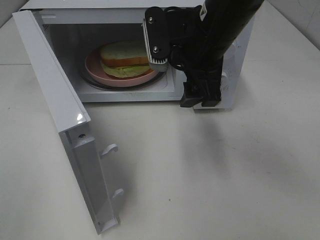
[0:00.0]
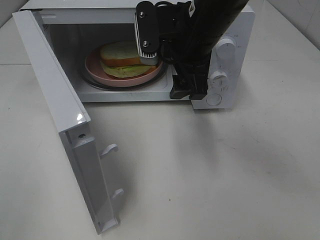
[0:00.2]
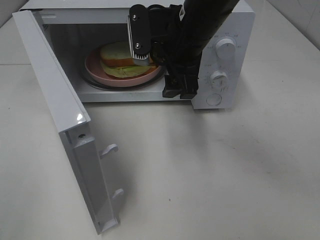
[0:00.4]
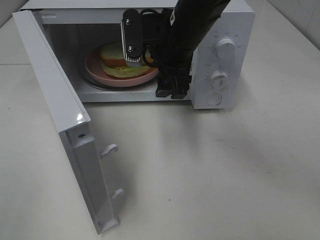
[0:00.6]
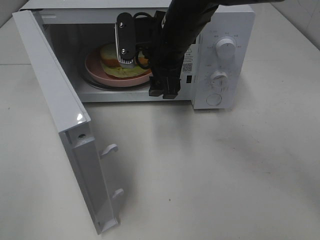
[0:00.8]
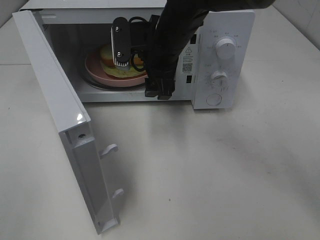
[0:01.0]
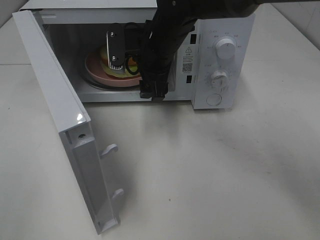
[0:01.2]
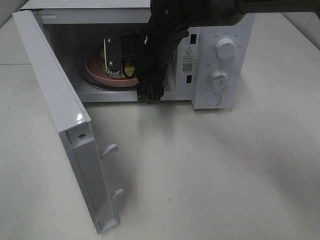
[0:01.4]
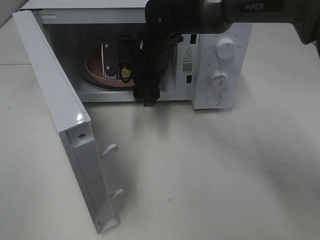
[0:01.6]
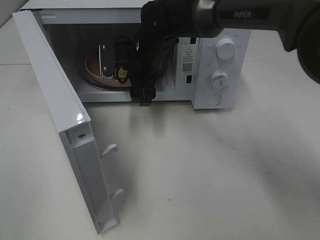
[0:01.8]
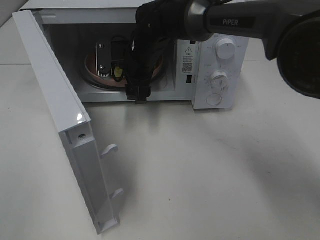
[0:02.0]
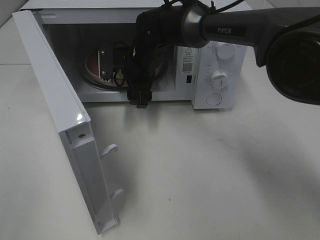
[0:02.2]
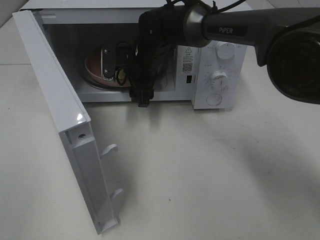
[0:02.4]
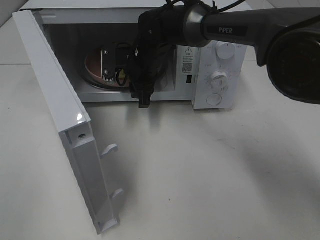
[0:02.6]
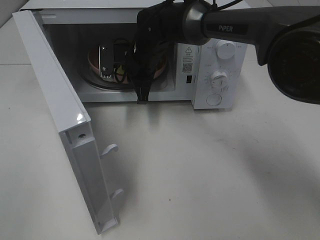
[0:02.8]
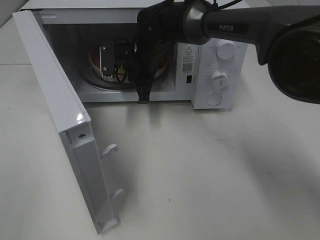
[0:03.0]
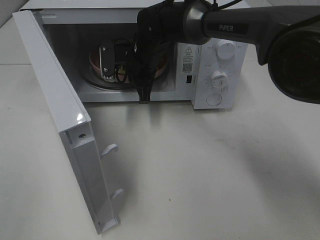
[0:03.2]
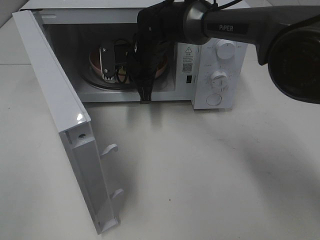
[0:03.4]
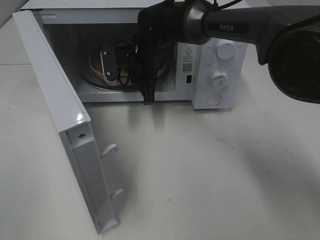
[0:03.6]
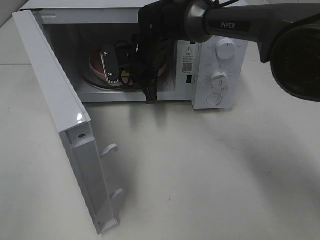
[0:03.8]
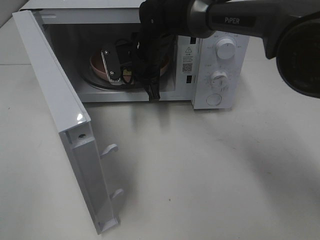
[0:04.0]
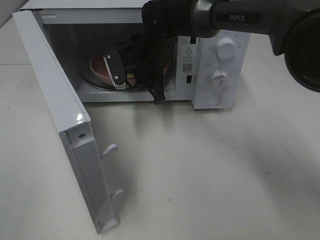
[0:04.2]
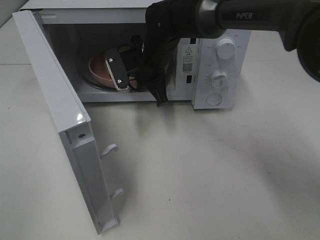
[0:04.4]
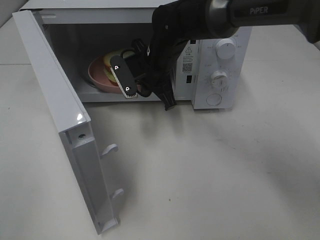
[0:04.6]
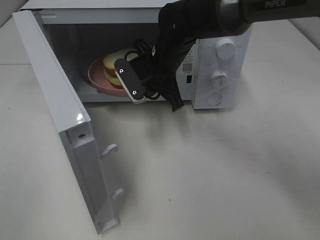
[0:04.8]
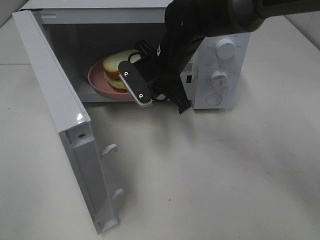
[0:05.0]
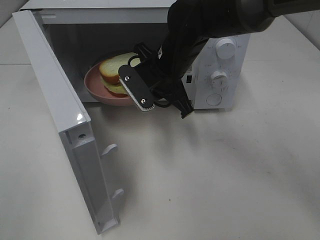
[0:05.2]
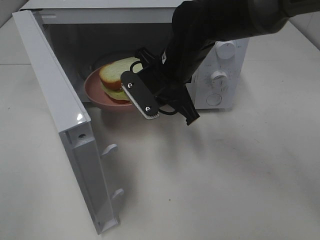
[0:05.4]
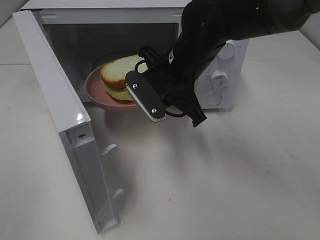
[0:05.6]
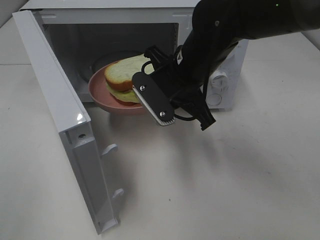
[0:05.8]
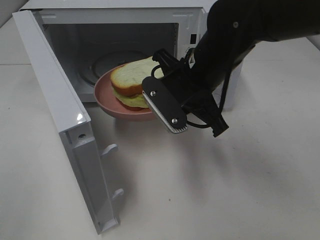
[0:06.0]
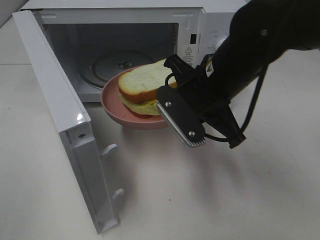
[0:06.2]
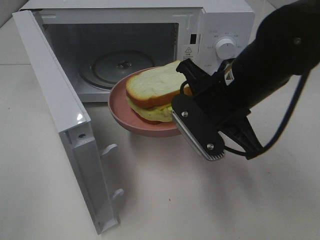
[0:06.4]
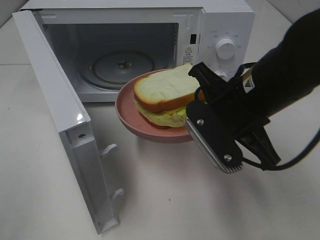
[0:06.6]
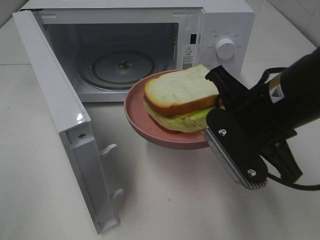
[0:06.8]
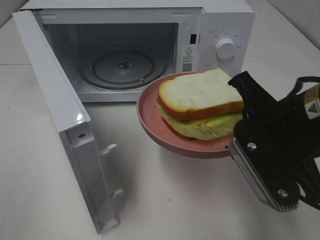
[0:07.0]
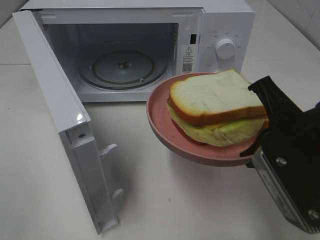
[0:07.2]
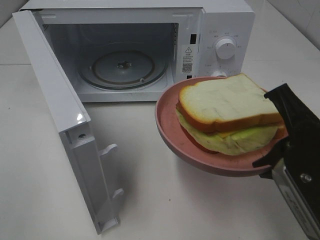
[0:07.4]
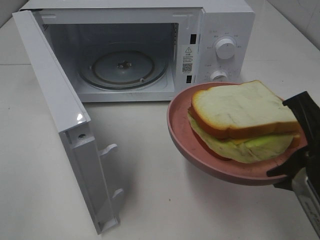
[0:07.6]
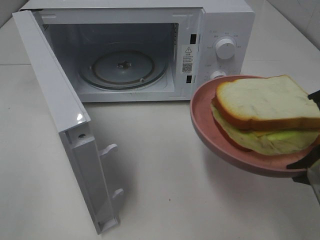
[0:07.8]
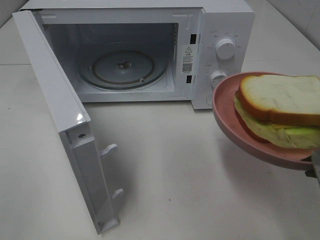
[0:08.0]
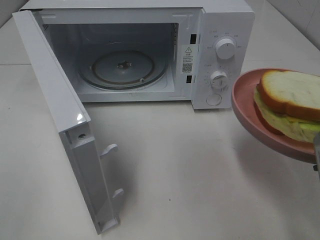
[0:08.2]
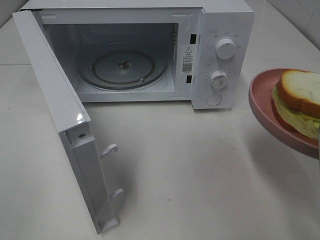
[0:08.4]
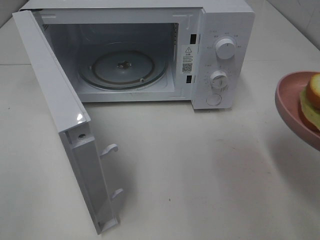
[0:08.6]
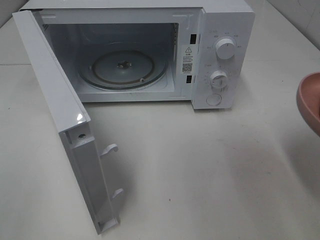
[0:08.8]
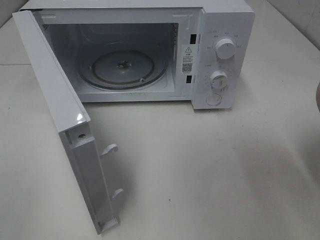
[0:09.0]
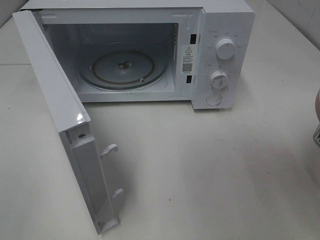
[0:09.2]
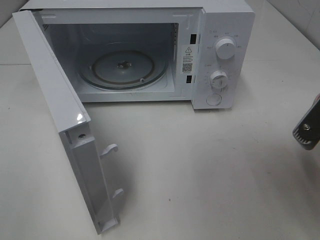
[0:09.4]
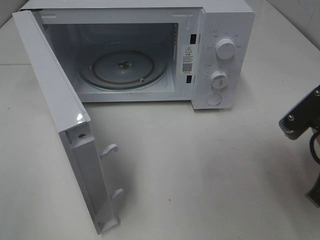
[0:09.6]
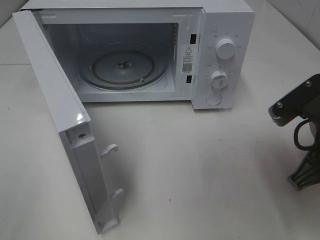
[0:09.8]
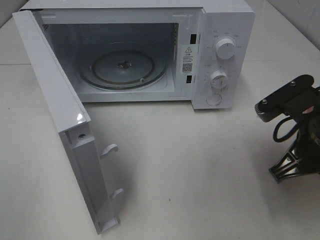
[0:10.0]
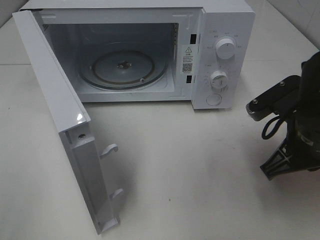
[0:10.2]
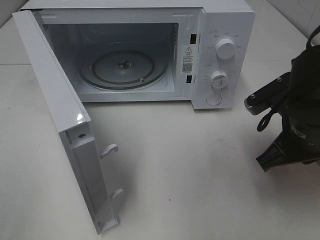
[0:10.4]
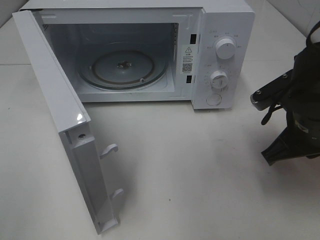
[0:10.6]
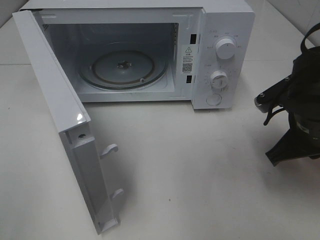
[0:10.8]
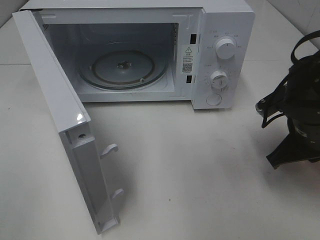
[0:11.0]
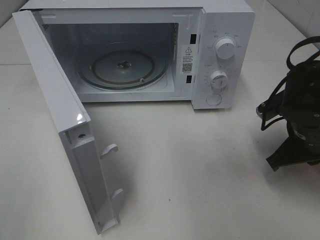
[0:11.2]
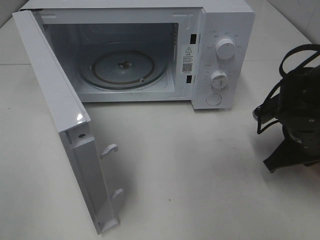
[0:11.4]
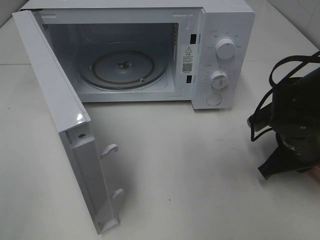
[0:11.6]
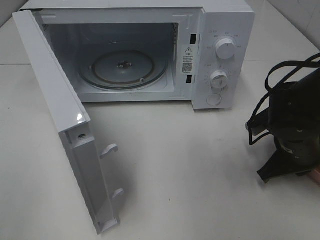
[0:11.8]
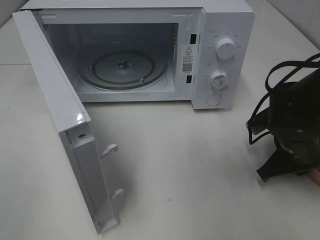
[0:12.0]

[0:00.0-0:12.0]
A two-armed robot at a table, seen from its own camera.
Task of the whole recording: Heat Sandwich.
Step, 0:00.0 to 0:02.6: Right hand: grab the plate with the sandwich.
0:00.0 to 0:01.6: The right gripper shifts some 15 cm forward, downward and to the left.
0:01.6 to 0:03.0: The right gripper closes.
0:03.0 to 0:04.4: The grippers move only a little.
0:04.4 to 0:06.0: The right gripper travels backward and to the right by some 15 cm.
0:06.0 to 0:07.6: The right gripper shifts about 20 cm backward and to the right.
0:07.6 to 0:09.0: The right gripper heads to the right, covering some 5 cm.
0:09.0 to 0:10.4: The right gripper is displaced forward, downward and to the left by some 15 cm.
0:10.4 to 0:12.0: The right gripper shifts roughly 10 cm downward.

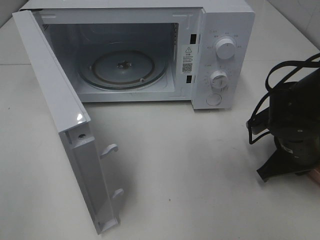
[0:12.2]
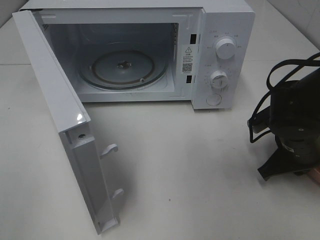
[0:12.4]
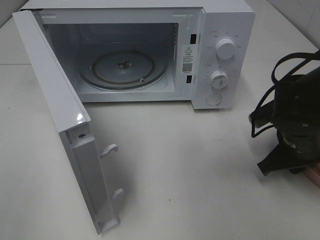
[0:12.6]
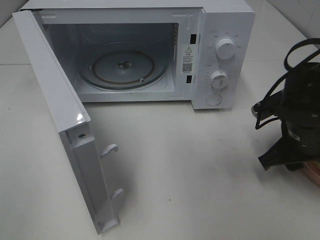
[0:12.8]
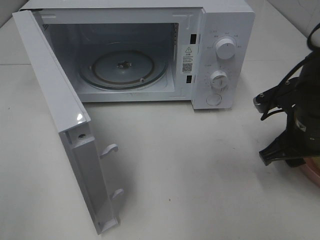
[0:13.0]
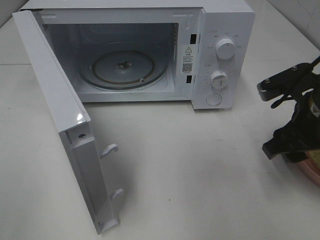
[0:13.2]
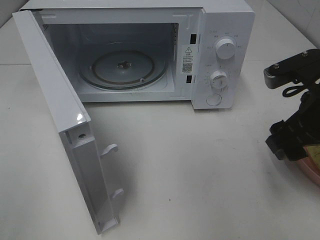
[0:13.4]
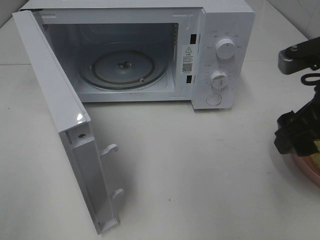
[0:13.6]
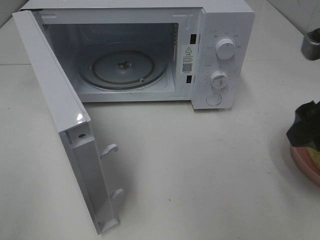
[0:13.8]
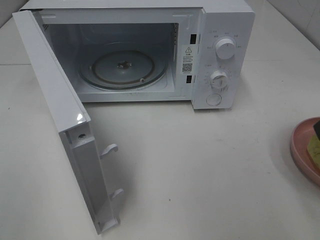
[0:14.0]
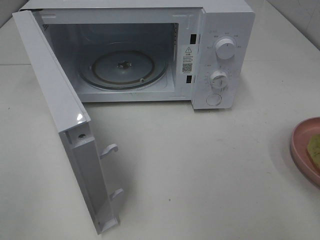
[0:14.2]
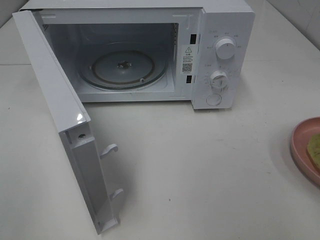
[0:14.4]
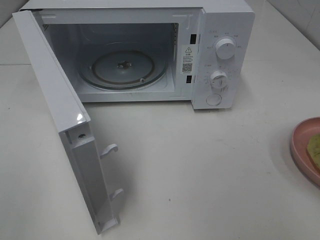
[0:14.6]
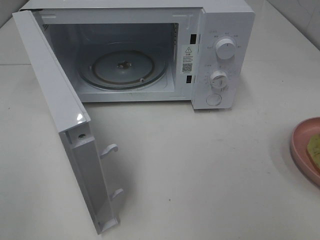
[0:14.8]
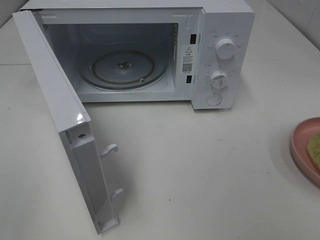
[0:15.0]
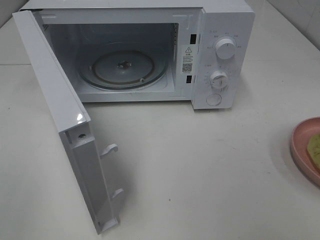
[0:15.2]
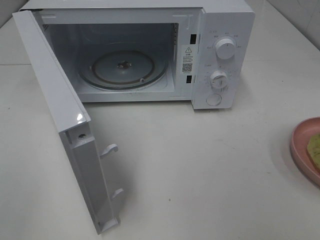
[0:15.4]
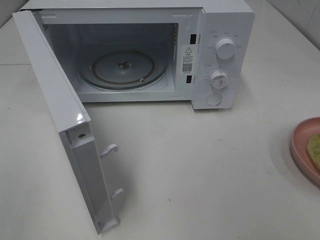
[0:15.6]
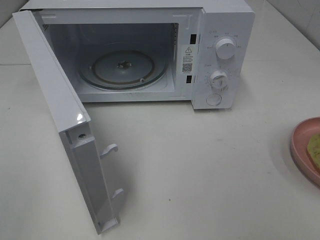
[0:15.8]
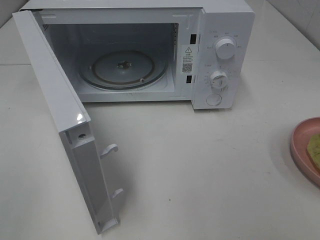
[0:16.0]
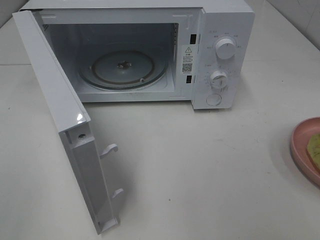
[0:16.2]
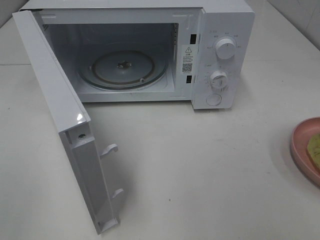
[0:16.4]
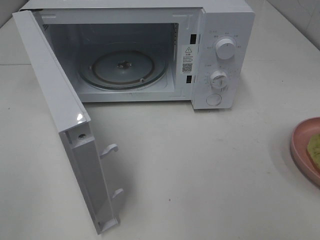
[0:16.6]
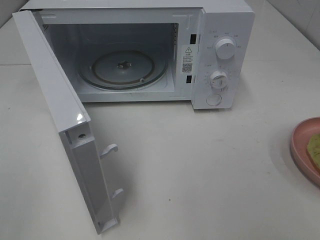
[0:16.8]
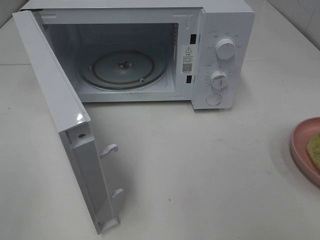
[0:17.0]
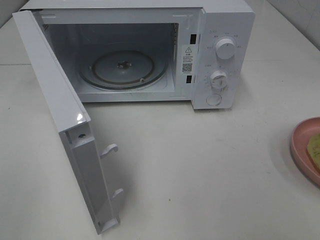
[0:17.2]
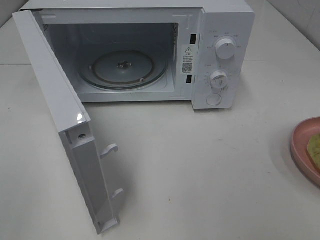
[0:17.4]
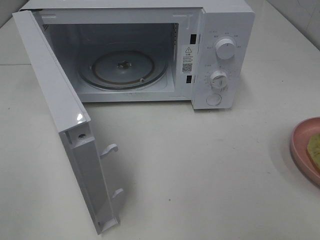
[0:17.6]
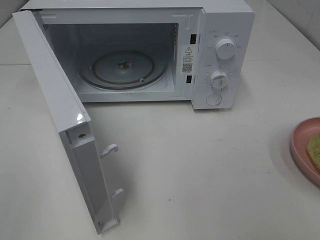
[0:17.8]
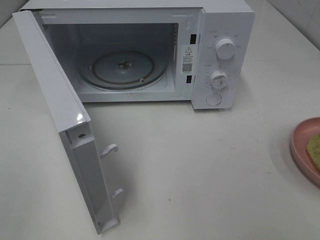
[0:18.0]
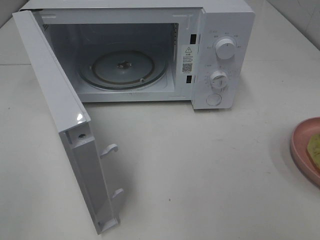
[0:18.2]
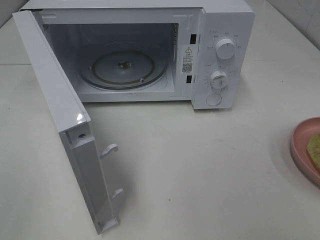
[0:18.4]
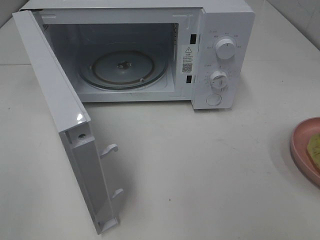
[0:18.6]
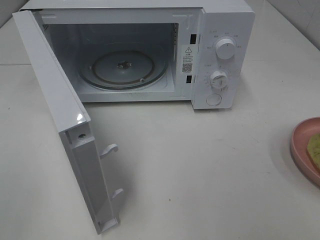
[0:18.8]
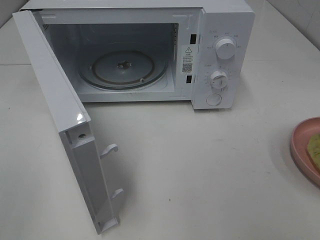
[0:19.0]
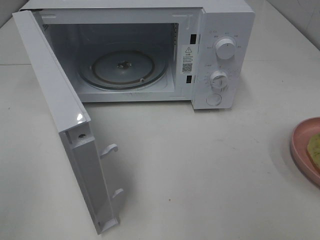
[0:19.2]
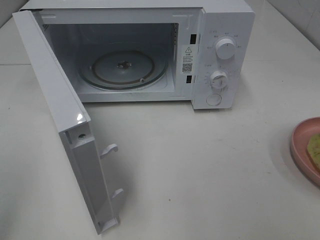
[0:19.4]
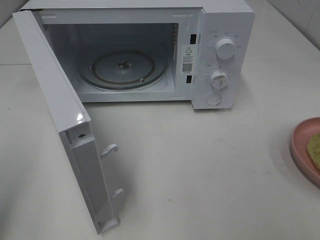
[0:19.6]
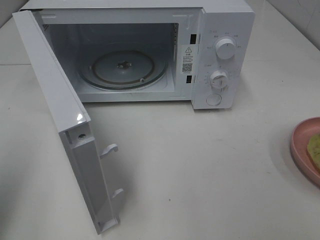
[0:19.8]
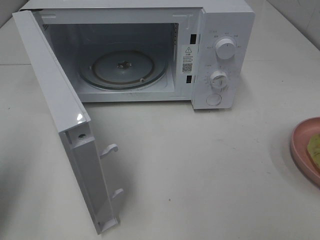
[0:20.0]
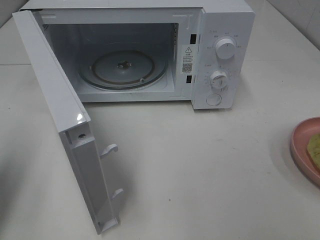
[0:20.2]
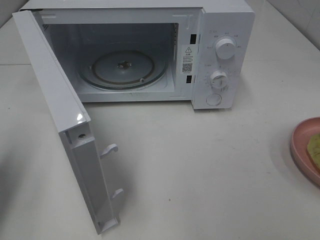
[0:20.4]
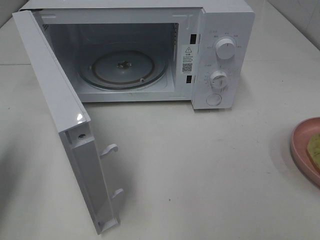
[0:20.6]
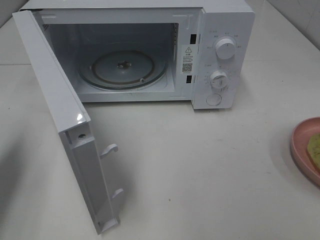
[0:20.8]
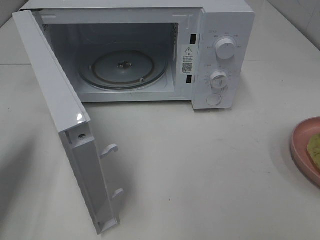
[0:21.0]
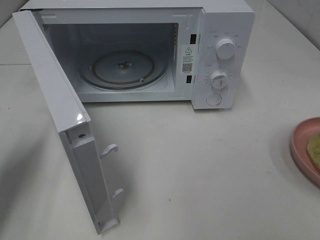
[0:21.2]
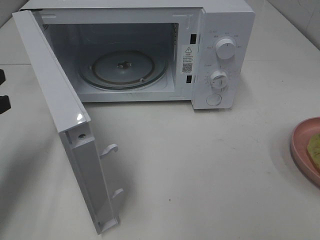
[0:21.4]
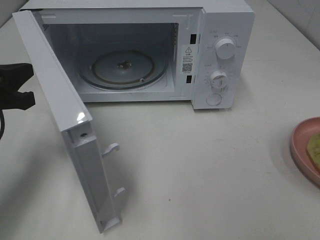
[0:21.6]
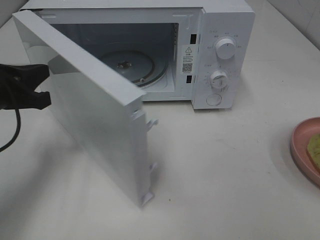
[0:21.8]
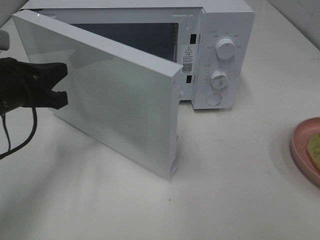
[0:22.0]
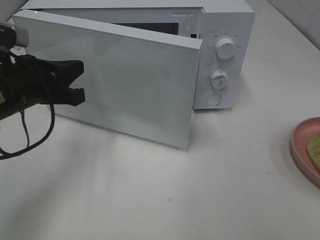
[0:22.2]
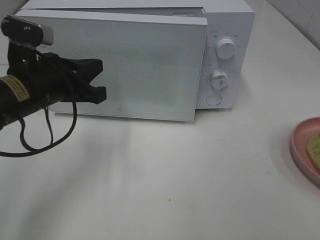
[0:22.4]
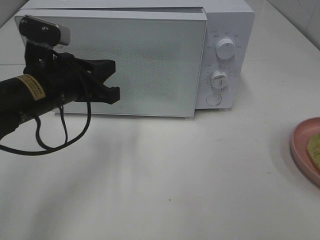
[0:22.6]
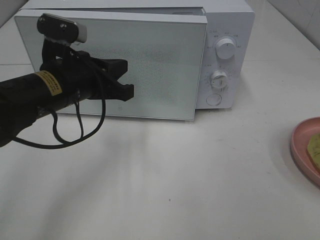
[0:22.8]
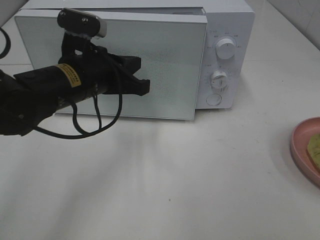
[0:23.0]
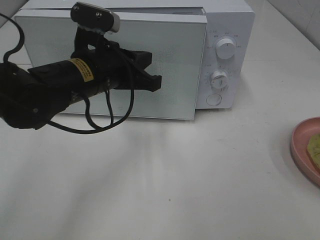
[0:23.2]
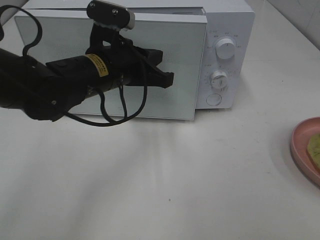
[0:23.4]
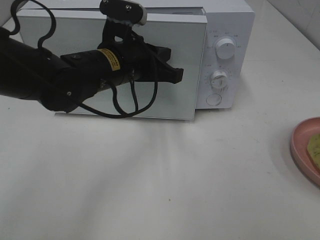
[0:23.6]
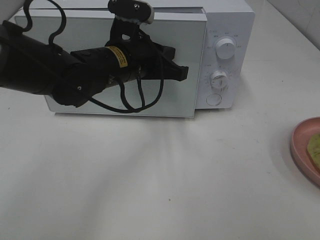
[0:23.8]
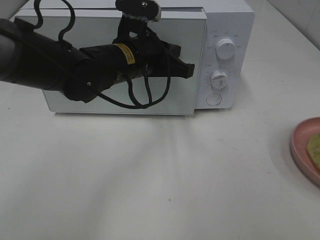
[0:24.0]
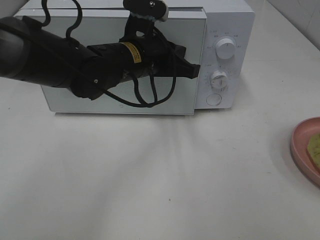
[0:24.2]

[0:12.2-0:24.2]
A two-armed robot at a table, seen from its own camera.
Task of the whole recording: Heat Sandwich.
0:12.2 to 0:13.8: The right gripper is displaced upward and backward by some 20 cm, and opens.
0:13.8 to 0:15.2: The right gripper is displaced backward and to the right by approximately 15 cm.
0:16.6 to 0:18.2: Both grippers stay put.
0:18.2 to 0:19.8: The left gripper goes roughly 10 cm forward, and closes.
0:19.8 to 0:21.2: The left gripper shifts roughly 15 cm forward and downward.
0:21.2 to 0:22.6: The left gripper shifts some 15 cm to the right.
0:22.6 to 0:24.2: The left gripper goes some 15 cm to the right and forward.
